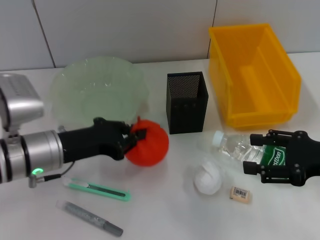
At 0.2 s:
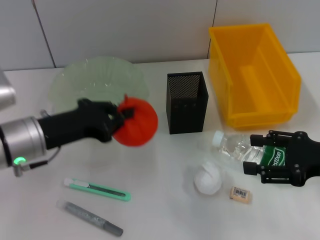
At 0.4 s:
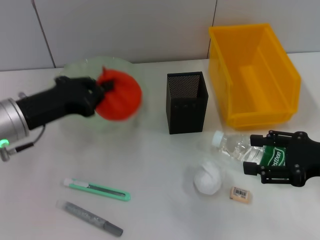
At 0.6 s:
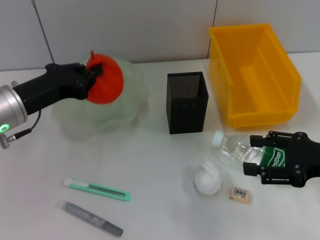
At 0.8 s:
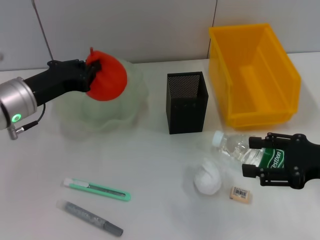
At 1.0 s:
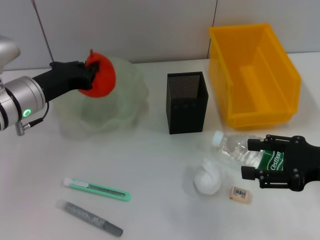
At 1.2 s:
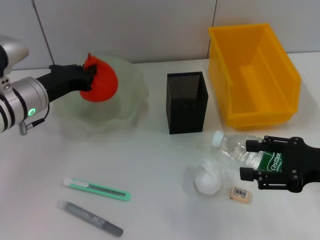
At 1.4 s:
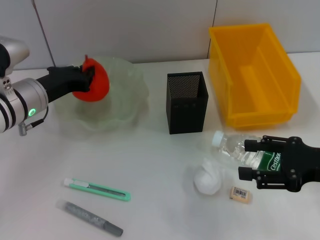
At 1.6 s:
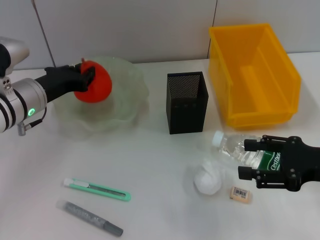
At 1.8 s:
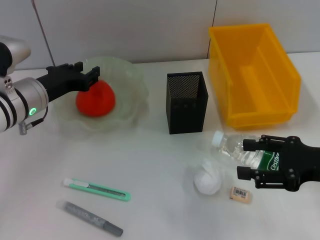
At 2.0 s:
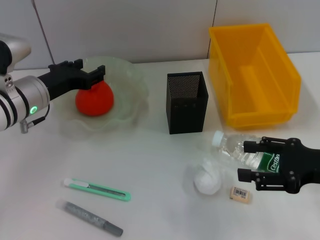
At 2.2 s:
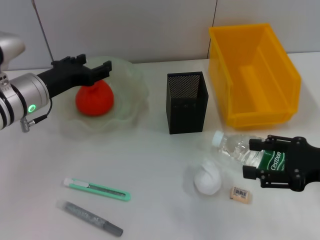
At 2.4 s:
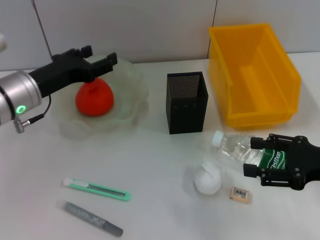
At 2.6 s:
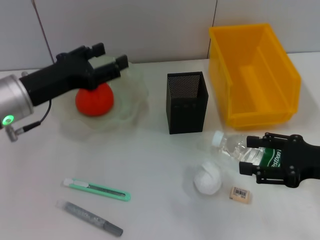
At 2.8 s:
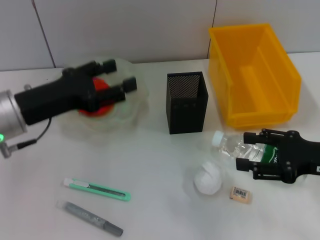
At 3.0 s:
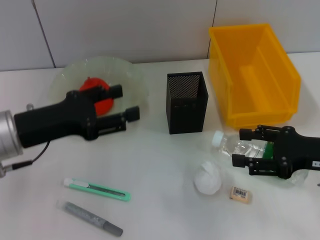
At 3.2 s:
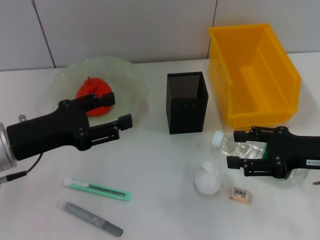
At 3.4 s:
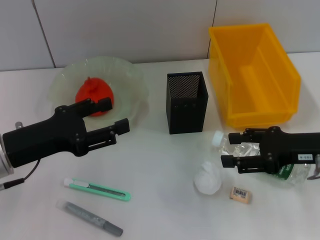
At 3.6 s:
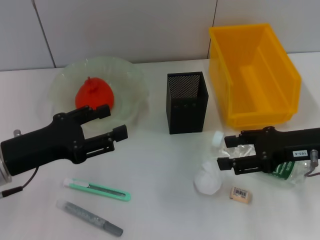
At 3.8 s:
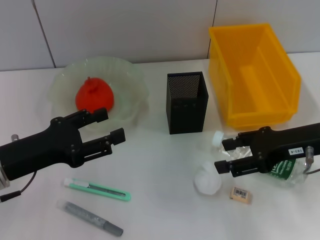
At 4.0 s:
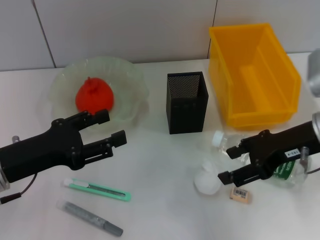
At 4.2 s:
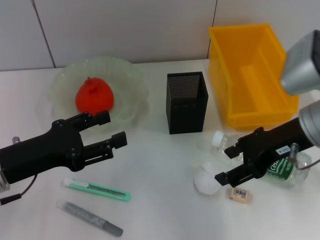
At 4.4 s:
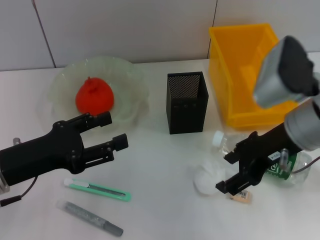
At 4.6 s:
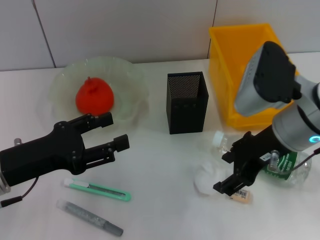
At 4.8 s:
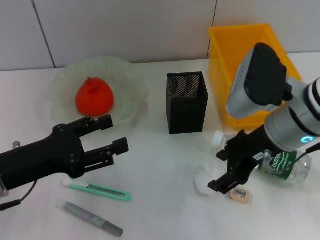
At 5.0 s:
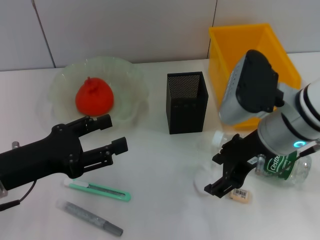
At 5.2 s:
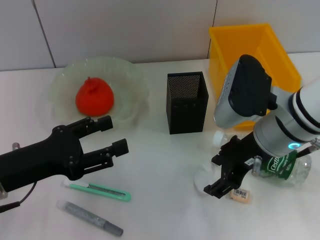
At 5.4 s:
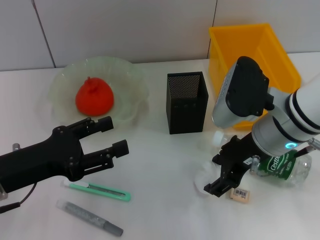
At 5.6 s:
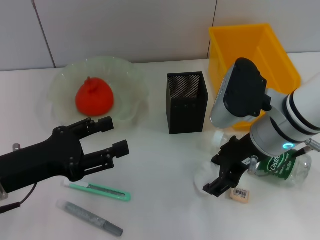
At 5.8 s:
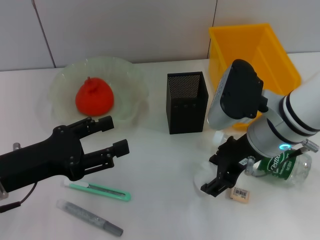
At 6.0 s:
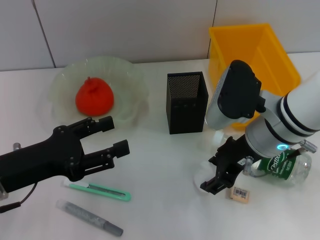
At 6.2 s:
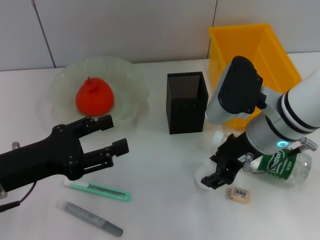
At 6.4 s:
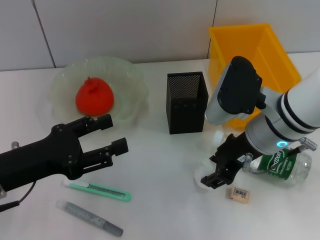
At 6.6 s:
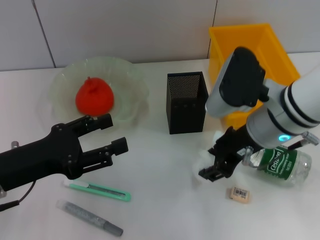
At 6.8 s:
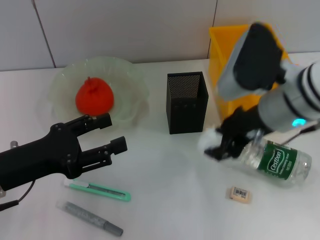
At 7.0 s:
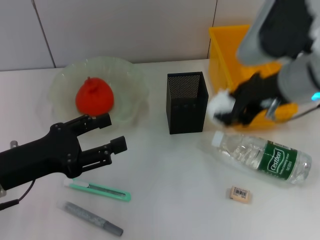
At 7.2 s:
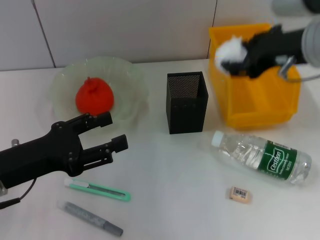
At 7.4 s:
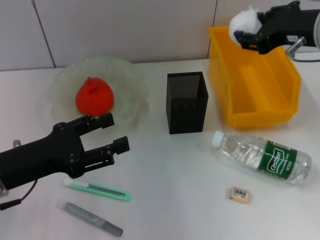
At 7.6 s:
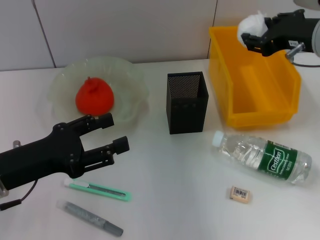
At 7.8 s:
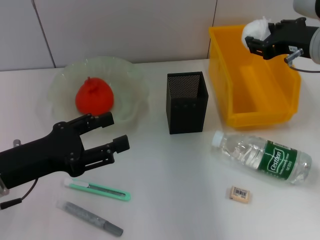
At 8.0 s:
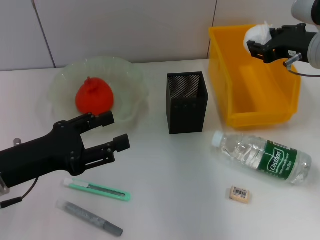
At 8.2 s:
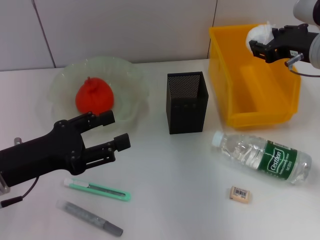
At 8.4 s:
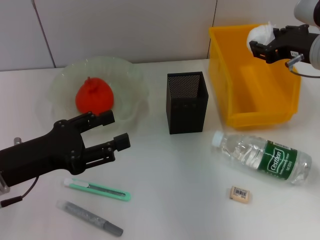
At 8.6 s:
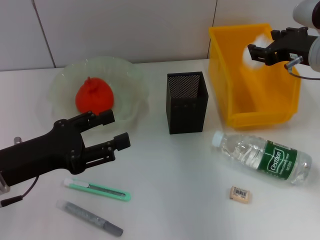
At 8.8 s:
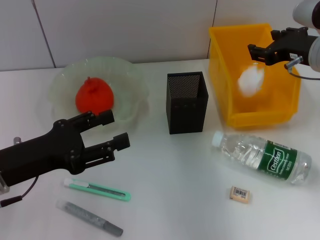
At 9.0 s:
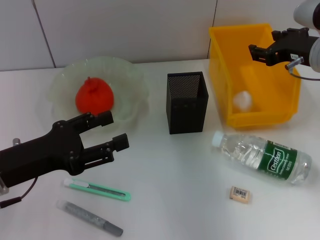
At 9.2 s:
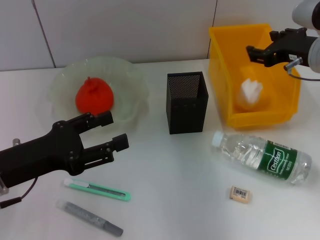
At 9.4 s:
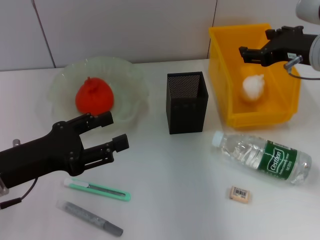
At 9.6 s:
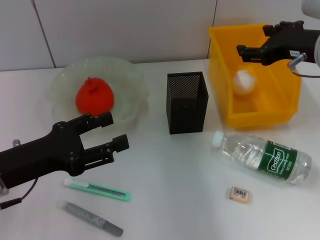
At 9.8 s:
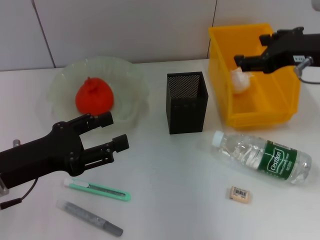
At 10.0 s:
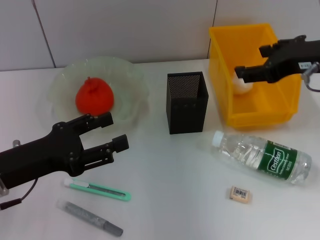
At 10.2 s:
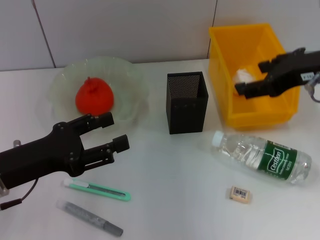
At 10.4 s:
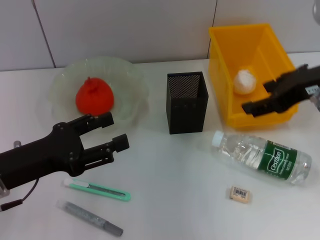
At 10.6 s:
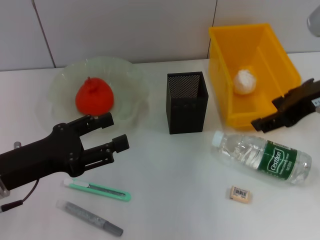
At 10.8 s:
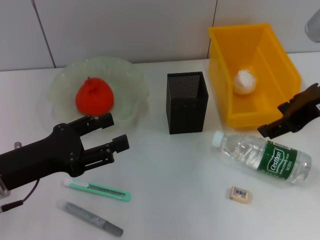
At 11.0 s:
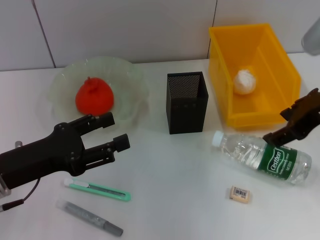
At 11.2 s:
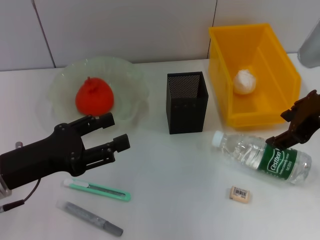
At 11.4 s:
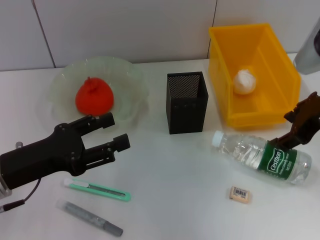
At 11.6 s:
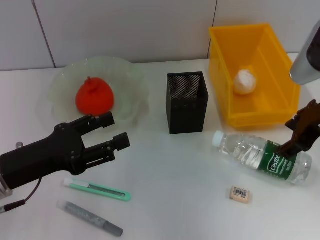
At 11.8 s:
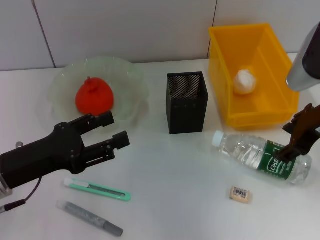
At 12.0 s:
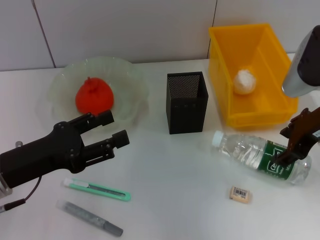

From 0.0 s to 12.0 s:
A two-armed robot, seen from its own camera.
Step, from 0.0 s to 1.8 s: Place the orange into the fruit bowl with the left hand.
Step, from 2.0 s to 6.0 s: Grab the paper ball with the right hand.
Step, from 6.4 s to 9.0 s: Place the paper ball into the trash can with the right hand.
From 0.0 s to 1.6 s: The left gripper is displaced forward by about 10 cm.
From 1.6 s to 3.0 s: The left gripper travels backward by approximately 10 cm, and opens its fingers.
From 3.0 s to 4.4 s: The right gripper heads to the left and upward, covering roughly 15 cm.
From 4.4 s to 6.0 s: The right gripper moves some 5 cm.
From 6.0 s to 7.6 s: The right gripper travels to the right and upward by roughly 10 cm, and closes its fingers.
From 7.6 s to 9.0 s: The right gripper changes place by some 5 cm.
From 9.0 s to 10.4 s: The right gripper is displaced backward and upward by approximately 10 cm.
From 10.4 s to 12.0 s: The right gripper is displaced downward by about 5 cm.

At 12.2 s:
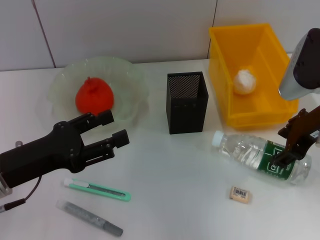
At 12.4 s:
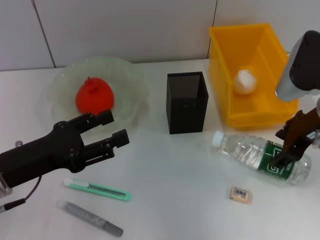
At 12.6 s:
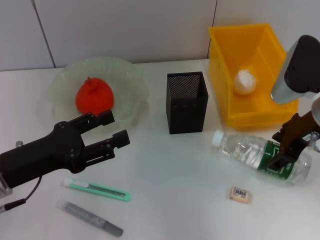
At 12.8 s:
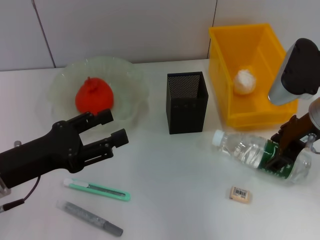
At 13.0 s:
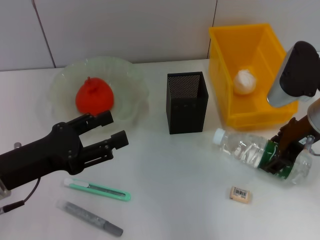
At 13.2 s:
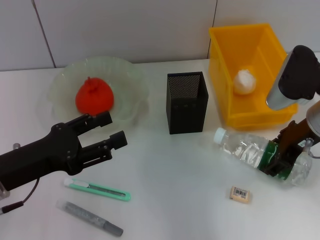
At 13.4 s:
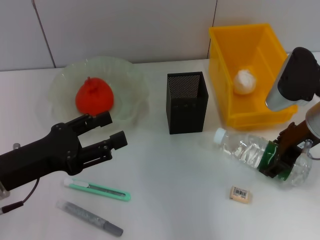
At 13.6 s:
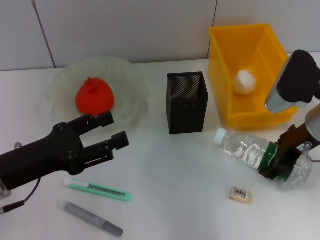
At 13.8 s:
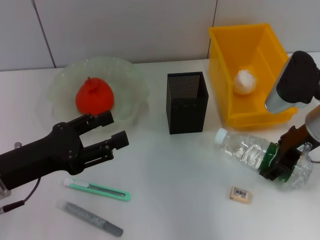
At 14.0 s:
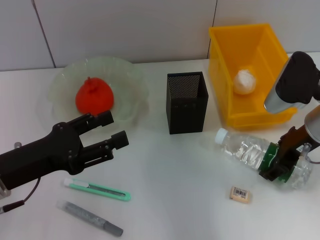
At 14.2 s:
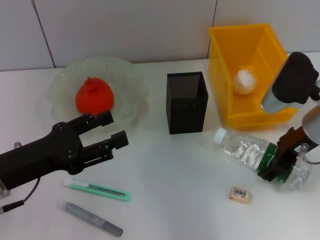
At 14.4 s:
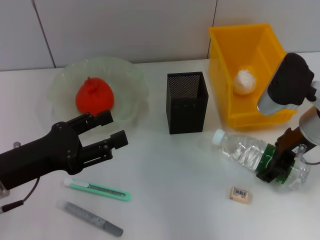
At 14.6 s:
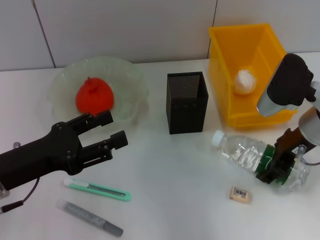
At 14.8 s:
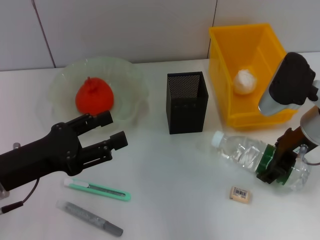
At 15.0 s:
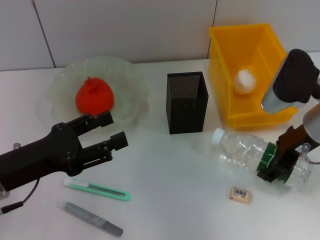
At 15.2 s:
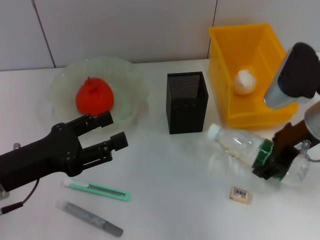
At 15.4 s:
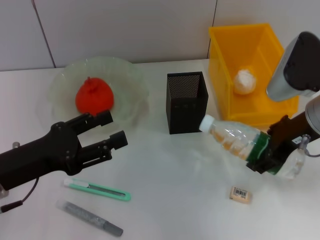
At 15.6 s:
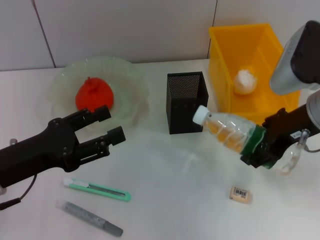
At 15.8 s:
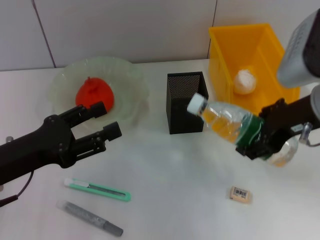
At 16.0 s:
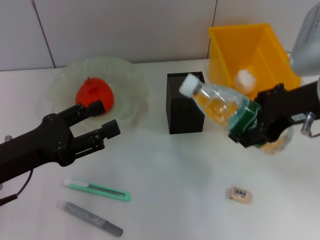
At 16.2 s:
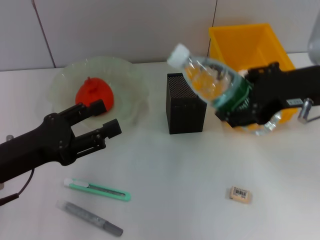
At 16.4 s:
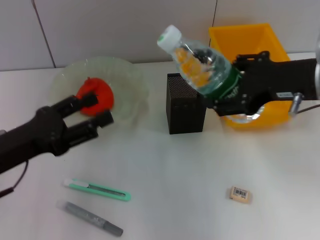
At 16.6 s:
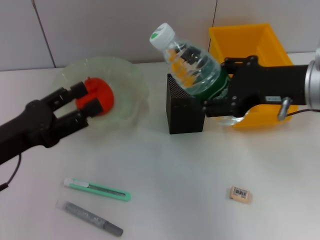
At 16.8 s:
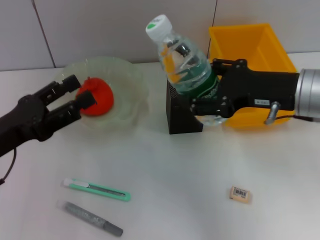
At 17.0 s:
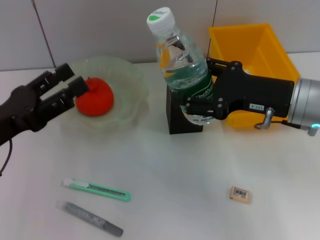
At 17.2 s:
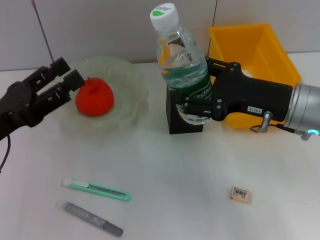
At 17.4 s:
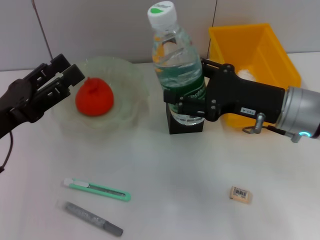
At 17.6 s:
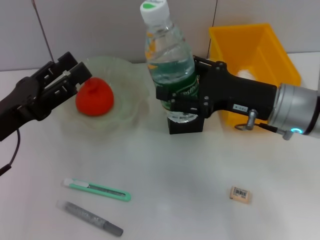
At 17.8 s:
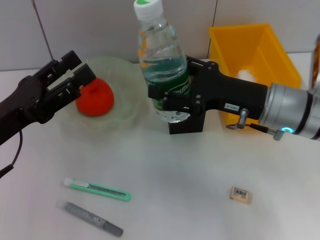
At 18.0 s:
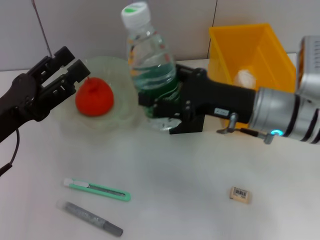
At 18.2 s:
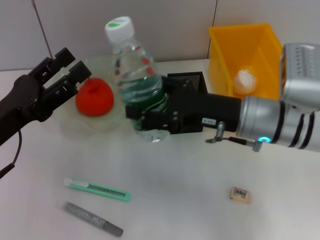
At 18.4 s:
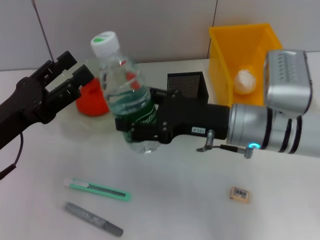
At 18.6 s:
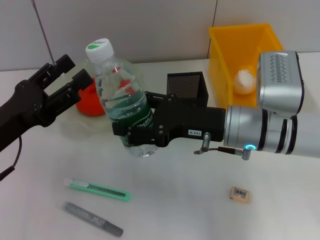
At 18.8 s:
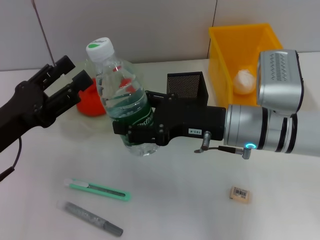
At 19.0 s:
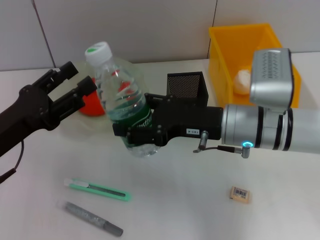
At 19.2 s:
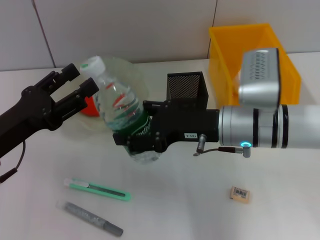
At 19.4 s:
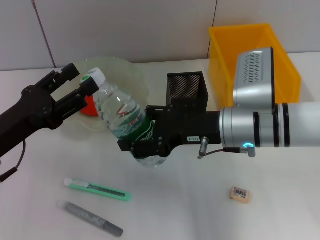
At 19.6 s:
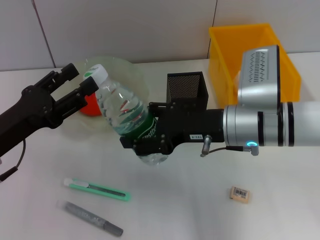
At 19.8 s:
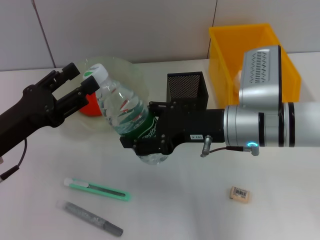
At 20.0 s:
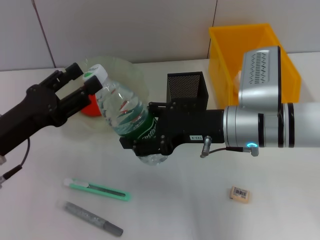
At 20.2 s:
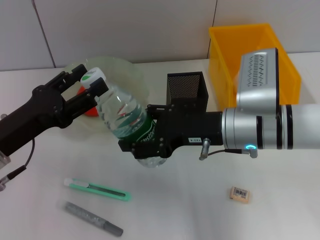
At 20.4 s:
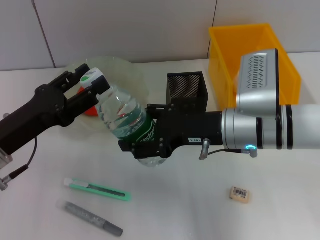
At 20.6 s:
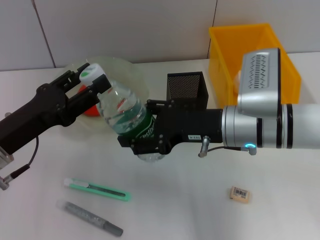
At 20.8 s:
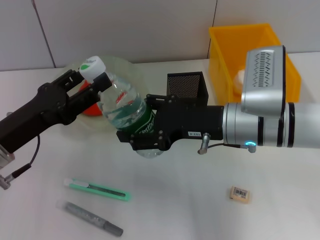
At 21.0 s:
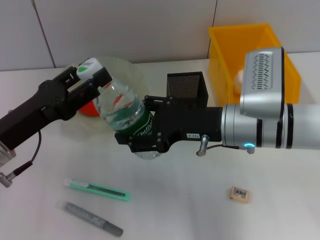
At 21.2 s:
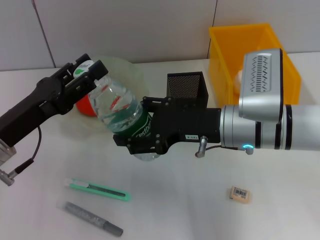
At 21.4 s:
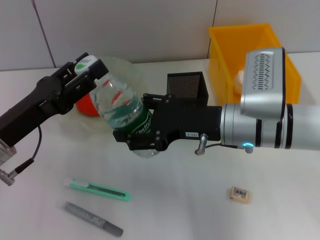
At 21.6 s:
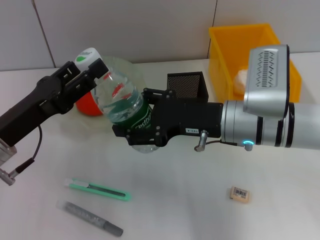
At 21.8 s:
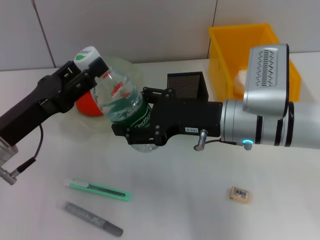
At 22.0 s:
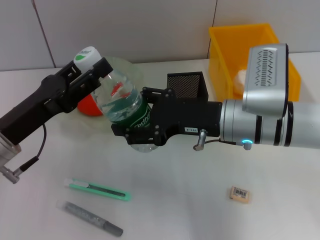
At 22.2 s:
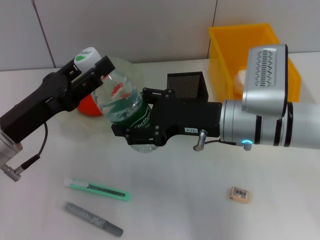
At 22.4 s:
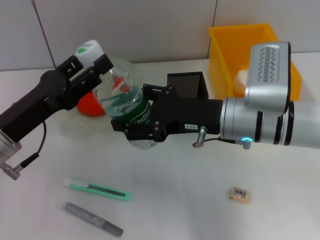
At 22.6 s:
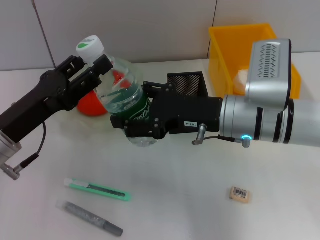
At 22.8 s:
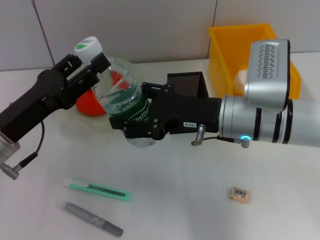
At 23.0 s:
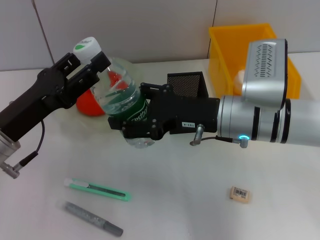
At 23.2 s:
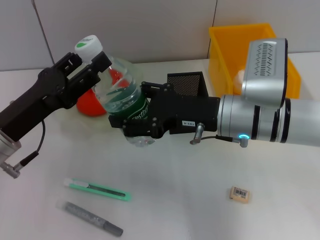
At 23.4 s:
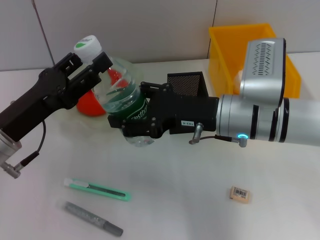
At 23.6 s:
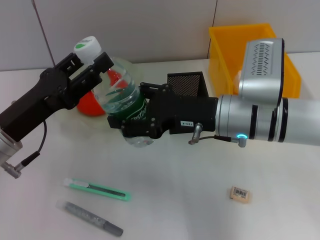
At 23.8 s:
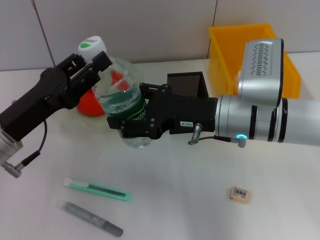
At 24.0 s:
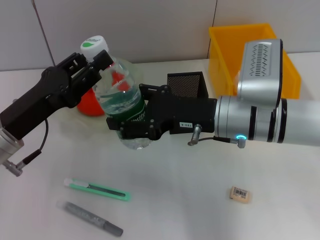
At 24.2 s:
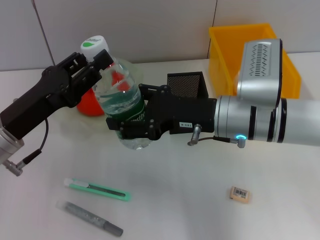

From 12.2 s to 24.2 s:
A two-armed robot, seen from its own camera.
Step, from 12.2 s to 14.8 s: Grab the water bottle with the right hand.
From 12.2 s to 15.2 s: The grippers move only a little.
From 16.6 s to 18.2 s: The right gripper is displaced downward and to the left by approximately 10 cm.
From 19.8 s to 22.6 s: There are only small adjustments of the grippers.
From 22.6 s to 24.2 s: Both grippers stay about where they are.
